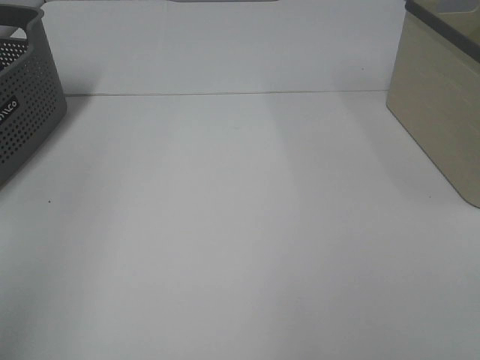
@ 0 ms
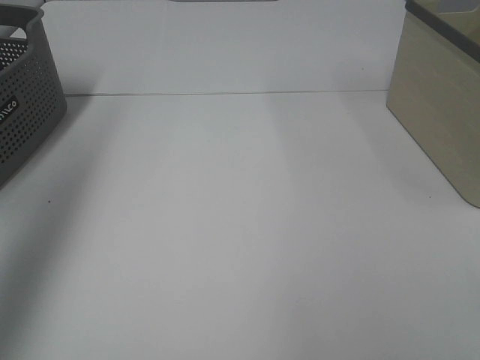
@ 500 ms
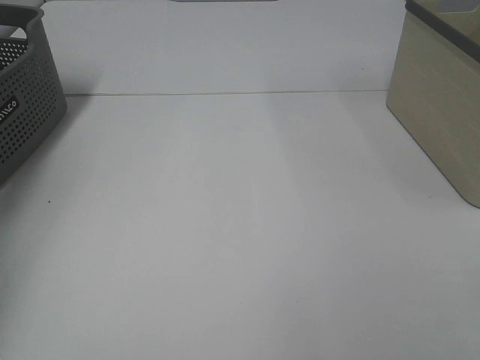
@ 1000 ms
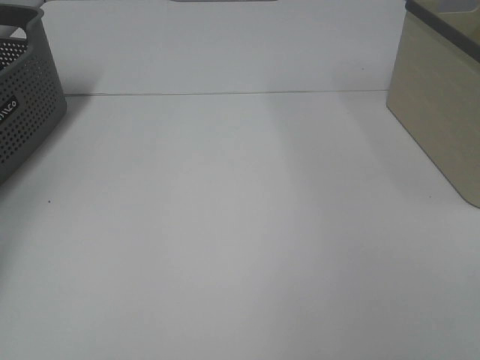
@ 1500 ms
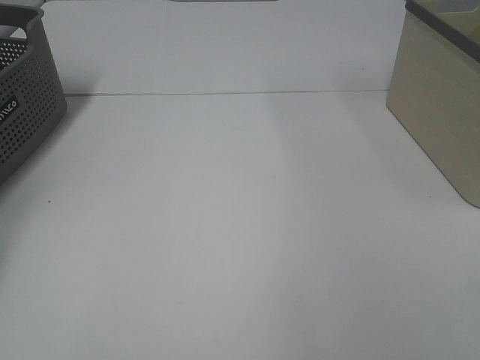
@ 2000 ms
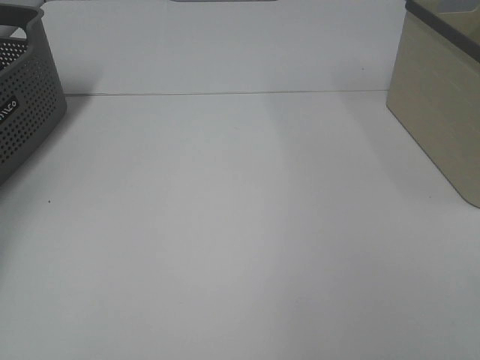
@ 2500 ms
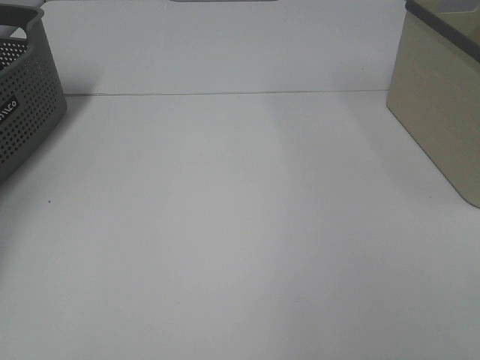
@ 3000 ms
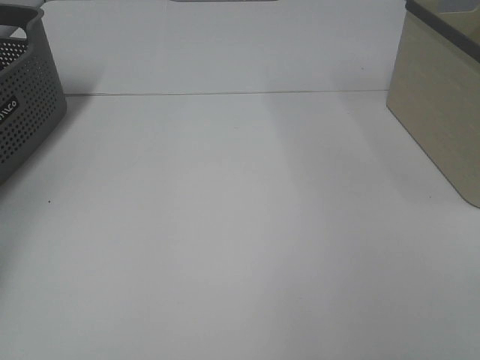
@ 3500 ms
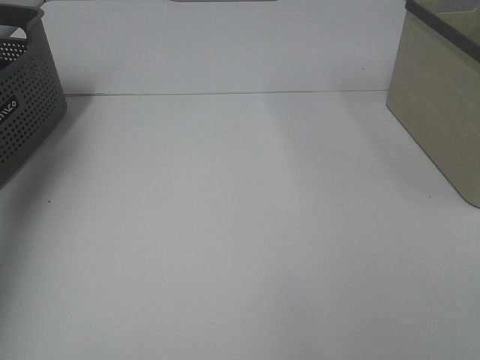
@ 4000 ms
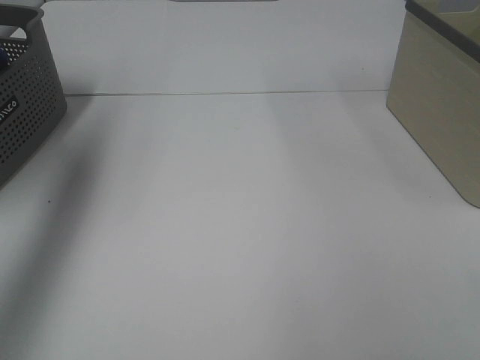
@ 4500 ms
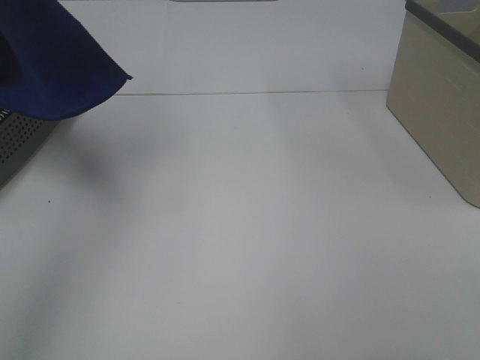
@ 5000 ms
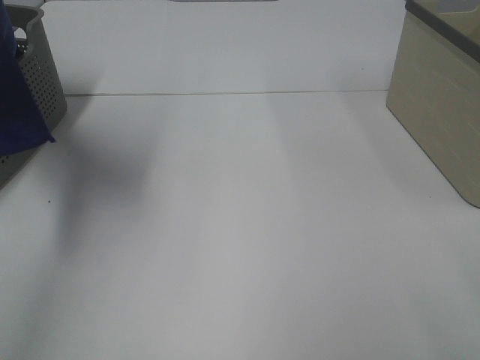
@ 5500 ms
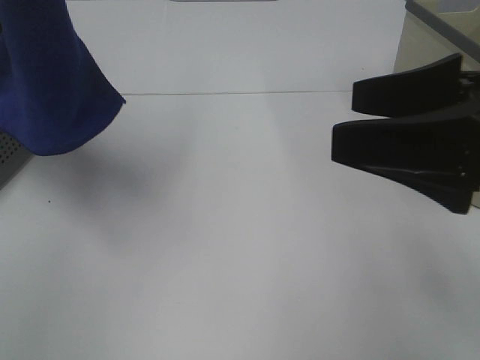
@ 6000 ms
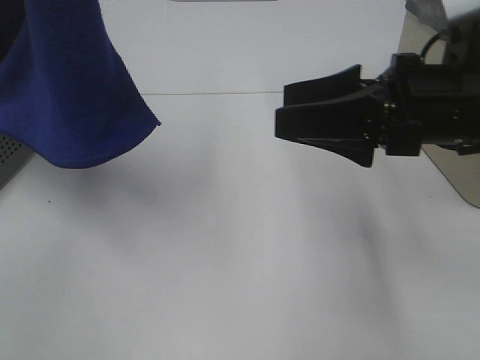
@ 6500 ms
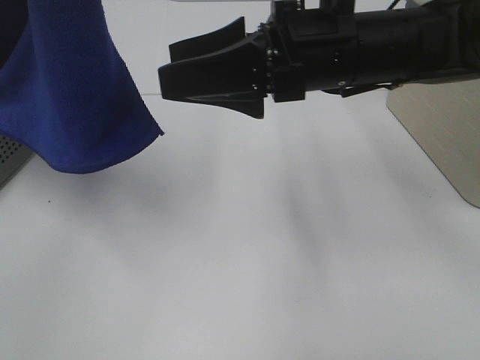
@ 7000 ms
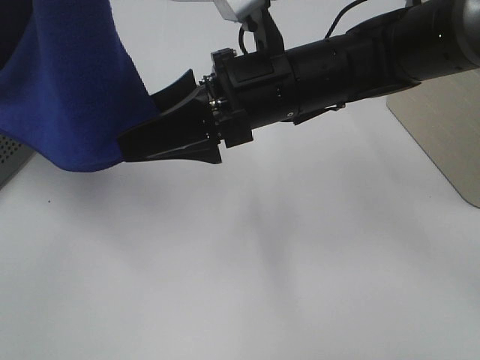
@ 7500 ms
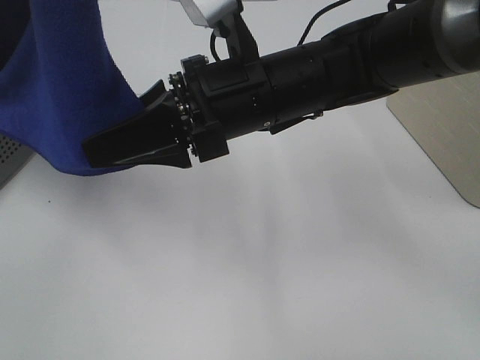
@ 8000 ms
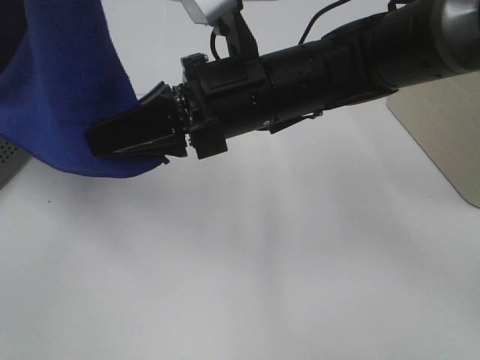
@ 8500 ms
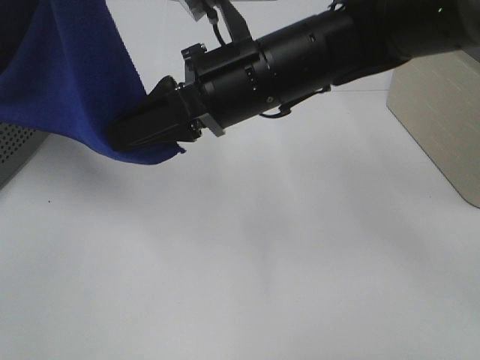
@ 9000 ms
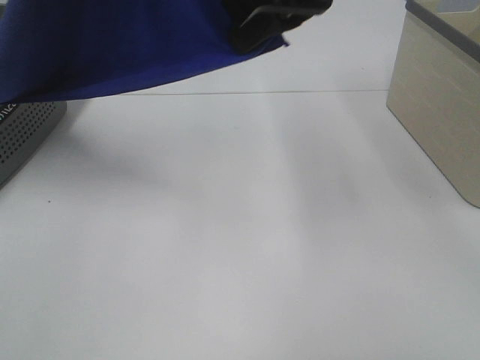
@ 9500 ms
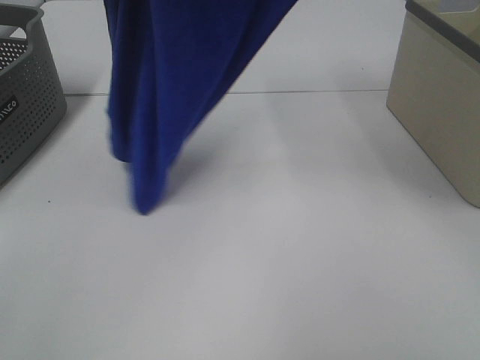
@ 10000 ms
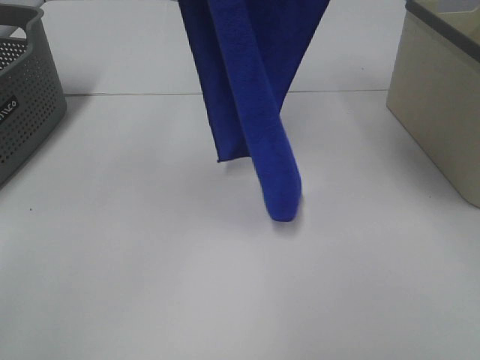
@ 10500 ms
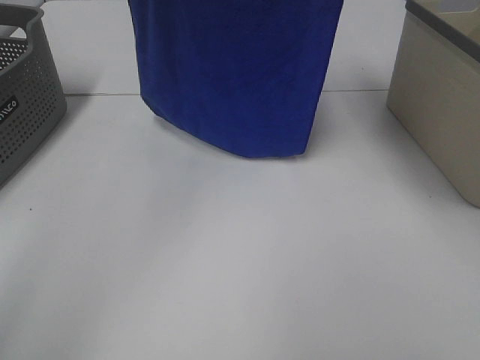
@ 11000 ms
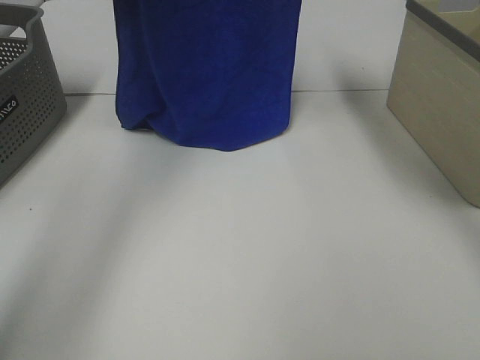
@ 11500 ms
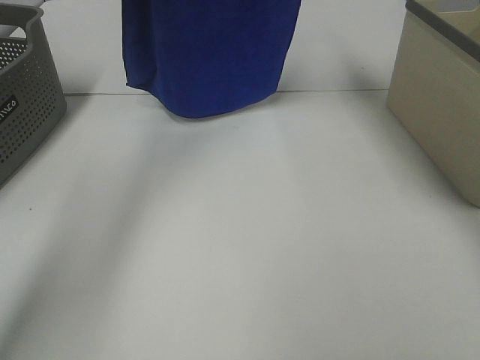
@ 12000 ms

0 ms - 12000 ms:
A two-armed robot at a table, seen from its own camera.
Task of the whole recording: Remove the towel and place it.
Step, 4500 ms - 7500 ms: Right hand: grab a corner of the blue towel and straighten it.
0 ms - 2000 ms: The left gripper heads forward, downward and to the left, covering some 50 cm.
2000 ms - 4000 ms: The left gripper shifts some 25 cm upward and to the right, and closes.
4000 ms - 6000 ms: The left gripper is displaced to the right, backward and upward by approximately 25 cm; the right gripper moves forward and to the left, about 20 cm.
6000 ms - 8000 ms: The right gripper shifts roughly 20 cm to the left and forward, and closes.
8000 ms - 10000 ms: The left gripper shifts roughly 10 cm forward. The right gripper moves upward and to the right, roughly 25 cm, and closes its fingers.
10000 ms - 12000 ms: The right gripper travels forward by approximately 15 cm, while the left gripper is displaced forward and downward by about 20 cm.

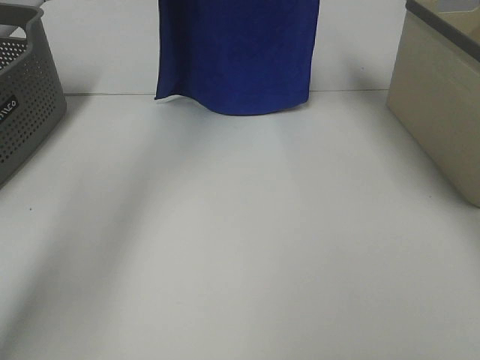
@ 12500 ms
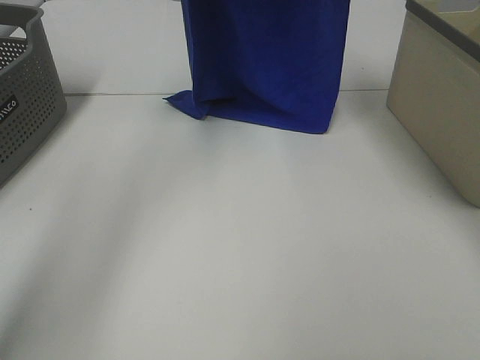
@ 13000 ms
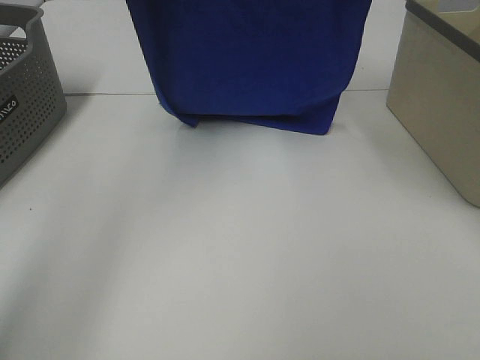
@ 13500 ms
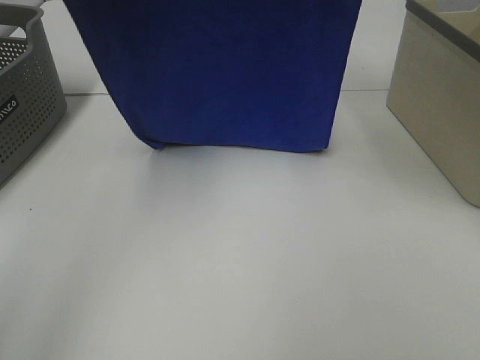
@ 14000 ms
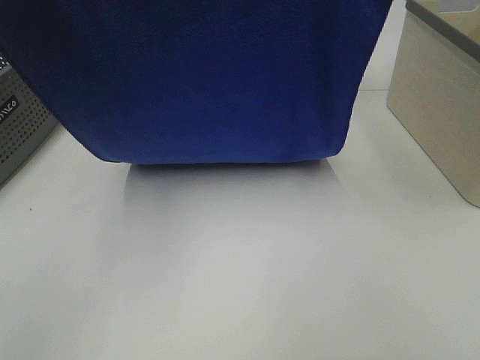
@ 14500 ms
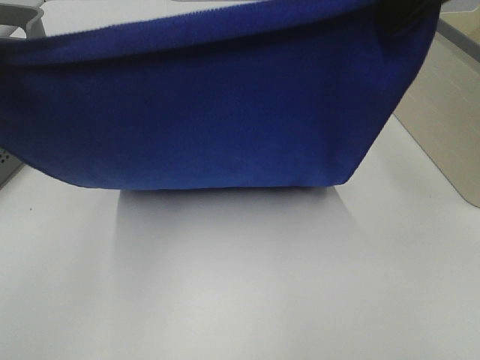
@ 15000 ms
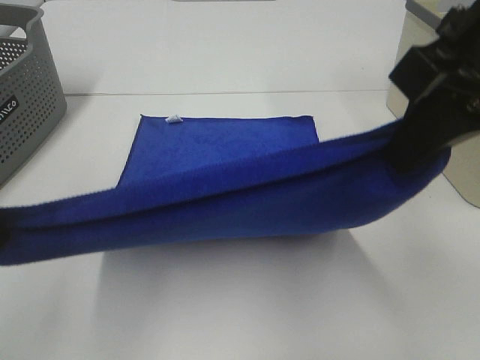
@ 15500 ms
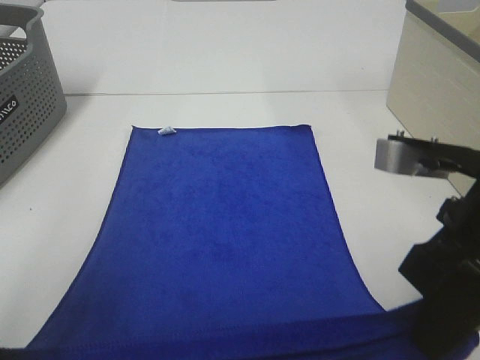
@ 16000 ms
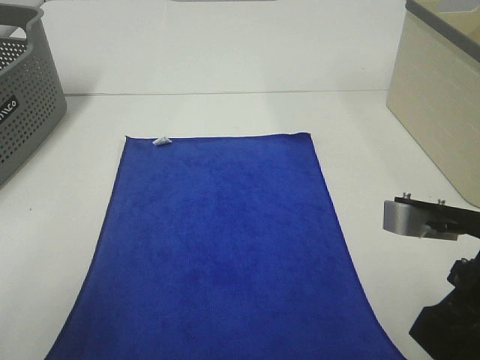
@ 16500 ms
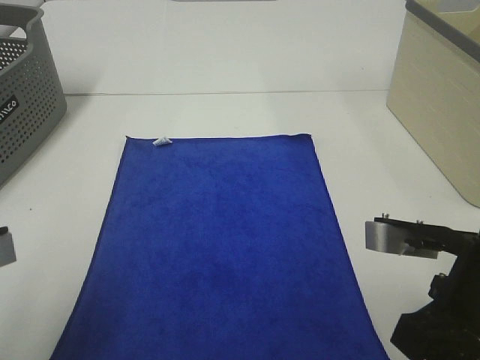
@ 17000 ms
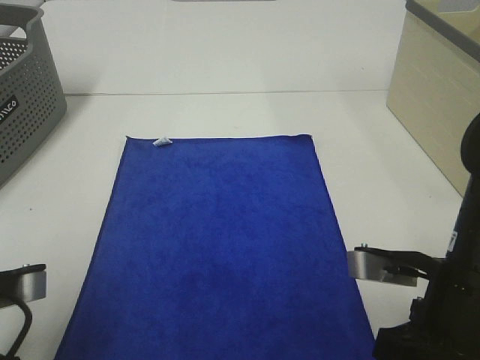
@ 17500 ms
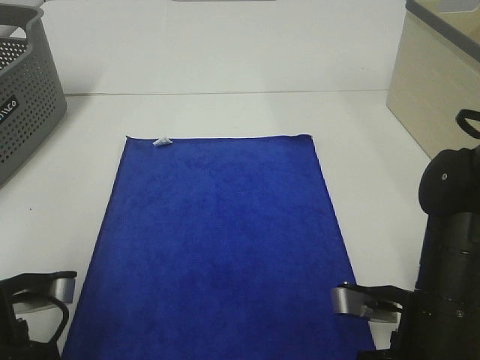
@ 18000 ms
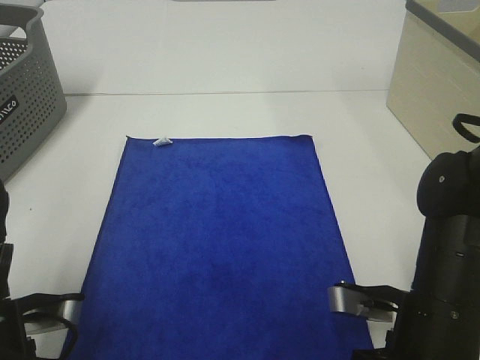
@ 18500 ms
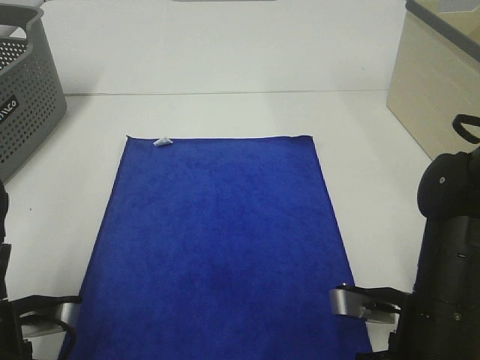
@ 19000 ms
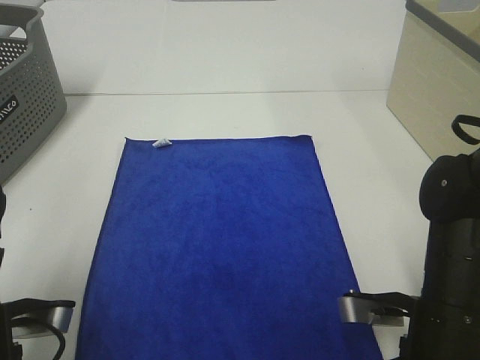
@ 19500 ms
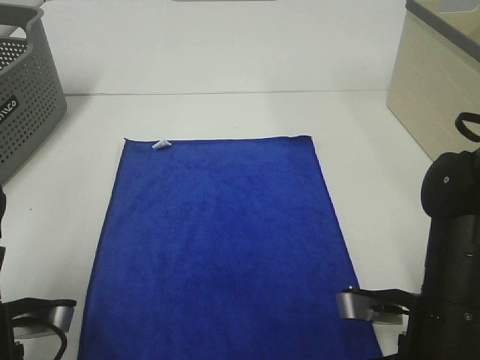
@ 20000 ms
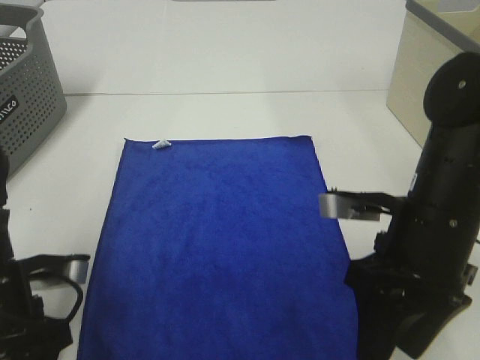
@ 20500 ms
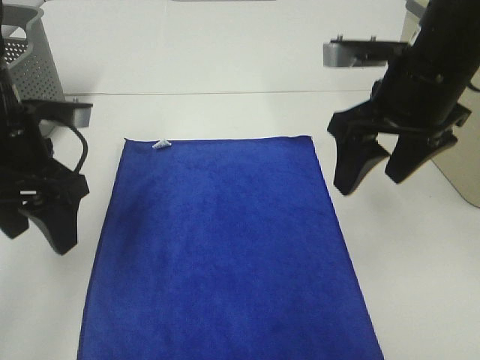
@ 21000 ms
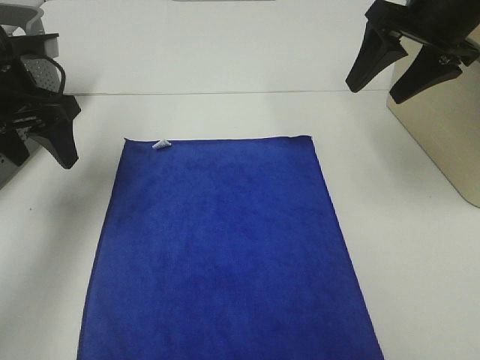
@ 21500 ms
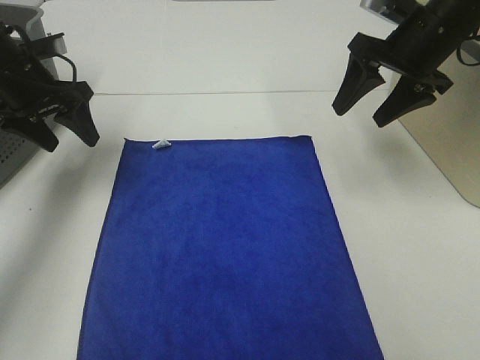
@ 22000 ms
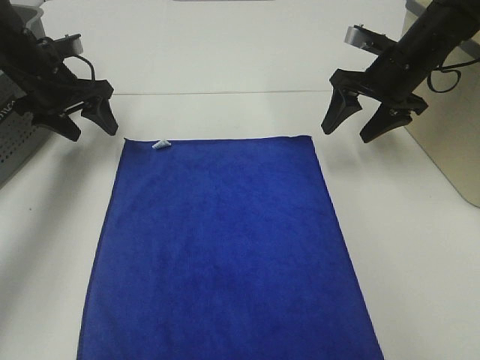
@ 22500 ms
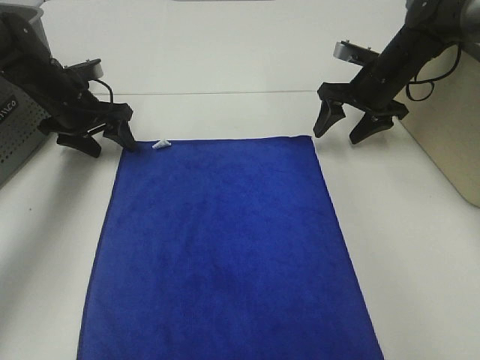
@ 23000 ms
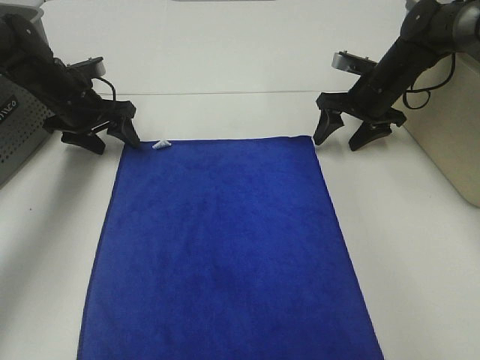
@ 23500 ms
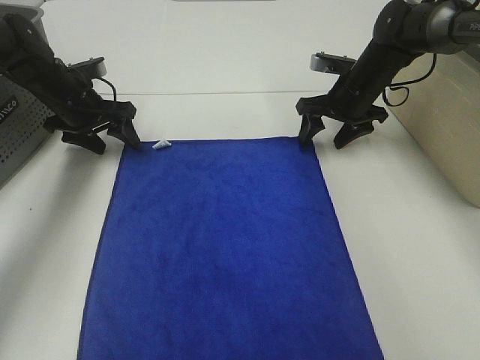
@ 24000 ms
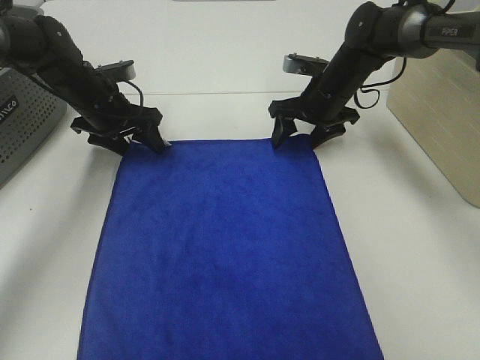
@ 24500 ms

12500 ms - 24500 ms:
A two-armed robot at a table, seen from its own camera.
Task of the whole recording: Remove the towel and place it.
Step, 12500 ms - 15000 ms: Left hand: spread the blue towel flat on the table.
Step, 12500 ms - 15000 ms: Right hand: spread the blue towel flat on the table.
Step, 15500 ms - 23500 ms: Left hand:adjust the blue towel.
Step, 15500 ms - 23500 ms: Right hand:adjust the blue towel.
12500 ms - 14500 ms: Both grippers move backward, some 20 cm.
14500 ms - 16500 ms: Both grippers travel together downward and backward, some 25 cm.
16500 ms - 18500 ms: The right gripper moves downward, about 10 cm. The left gripper is displaced downward and forward by about 15 cm.
18500 ms - 20500 ms: The left gripper opens, while the right gripper shifts about 10 cm upward and forward, and opens.
20500 ms - 22500 ms: The two grippers go some 25 cm forward.
22500 ms - 24500 ms: The left gripper heads to the right, covering some 5 cm, while the right gripper heads to the left and downward, covering about 10 cm.

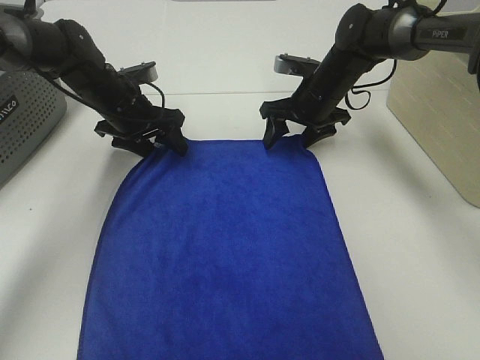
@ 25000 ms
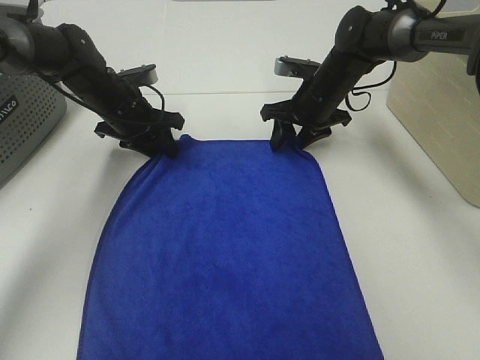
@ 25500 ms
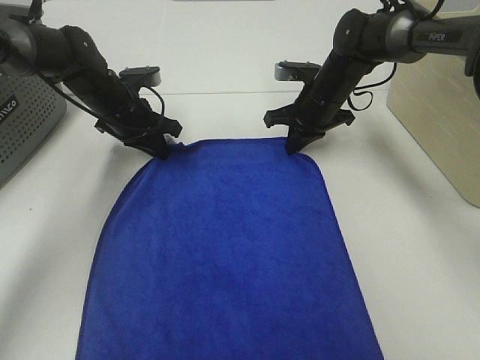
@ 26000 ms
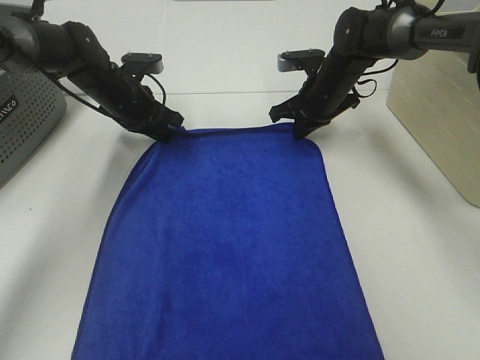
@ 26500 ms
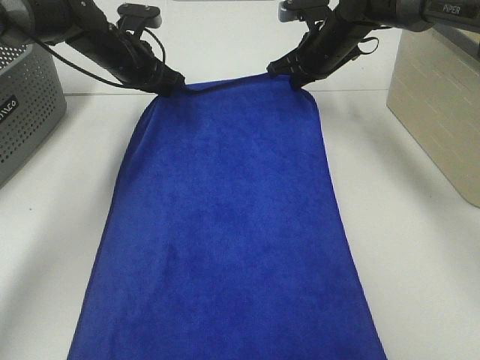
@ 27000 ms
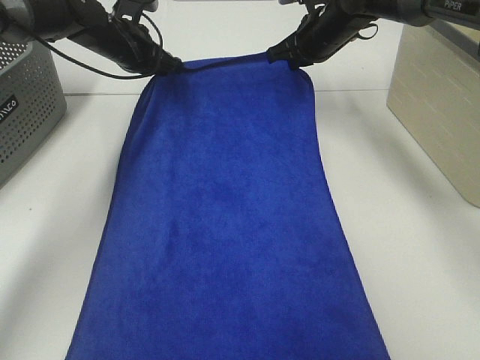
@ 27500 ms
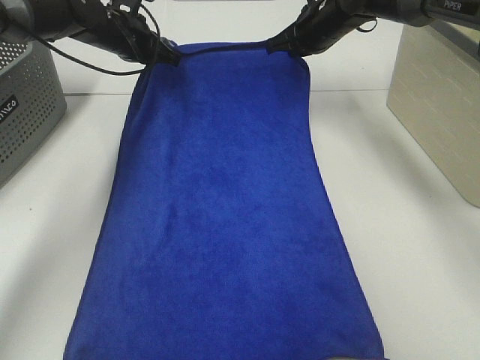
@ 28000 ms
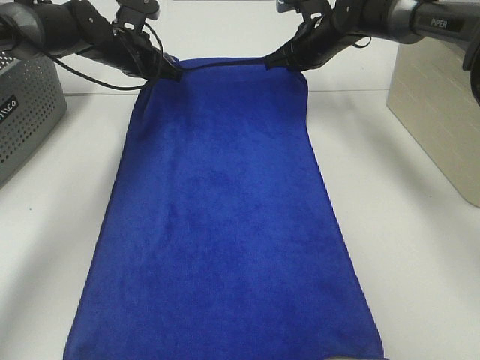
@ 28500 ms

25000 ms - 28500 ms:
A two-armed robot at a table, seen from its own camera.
Task of the whole recording: Remove the towel and place it.
25000 ms - 27000 ms: The two grippers go about 5 cm upward. The right gripper closes its fingers. The left gripper closes its fingers.
27000 ms - 28500 ms: There are only small adjustments of the grippers.
